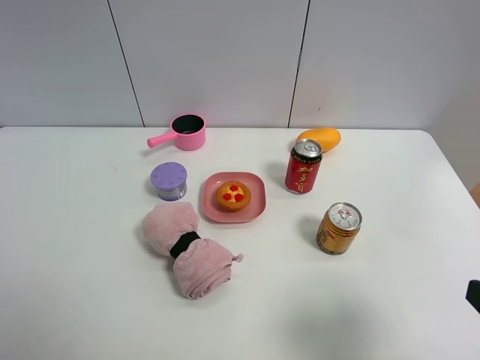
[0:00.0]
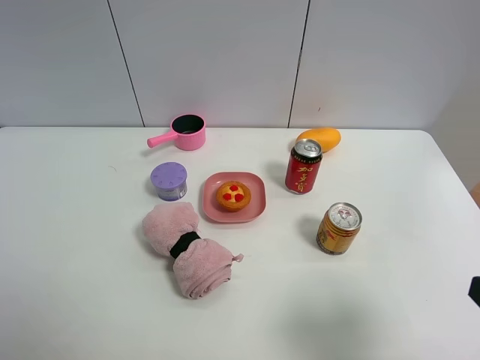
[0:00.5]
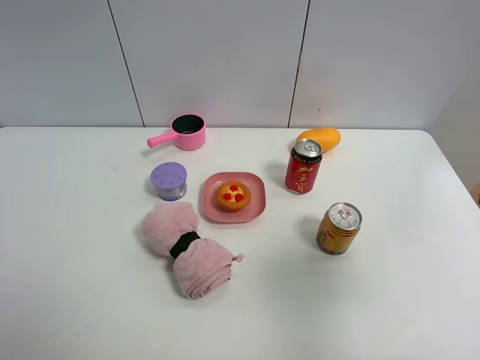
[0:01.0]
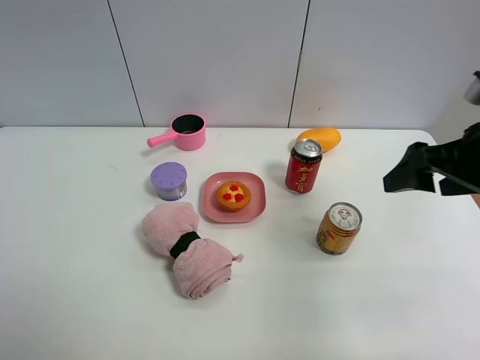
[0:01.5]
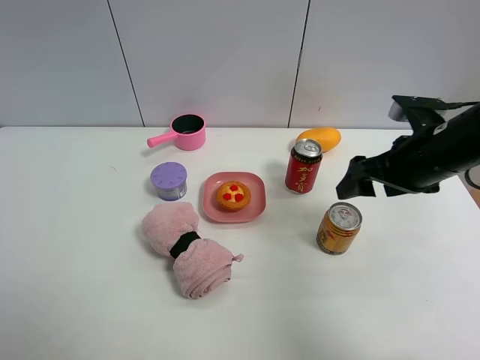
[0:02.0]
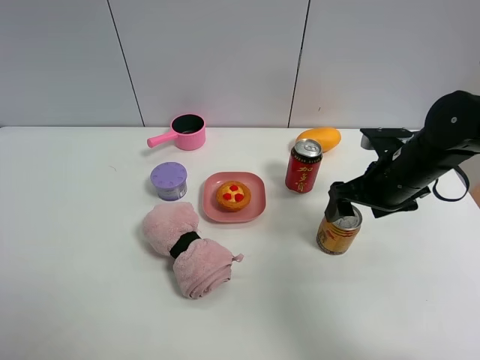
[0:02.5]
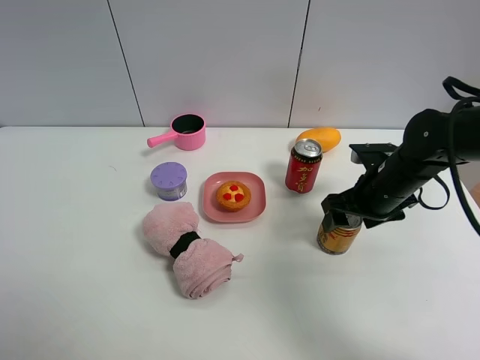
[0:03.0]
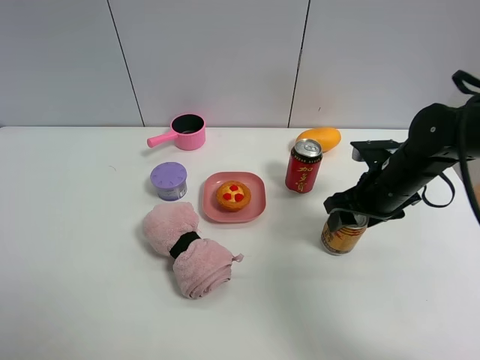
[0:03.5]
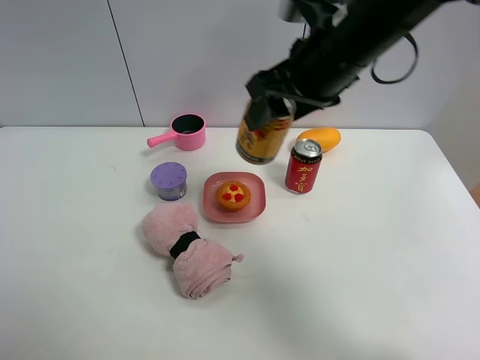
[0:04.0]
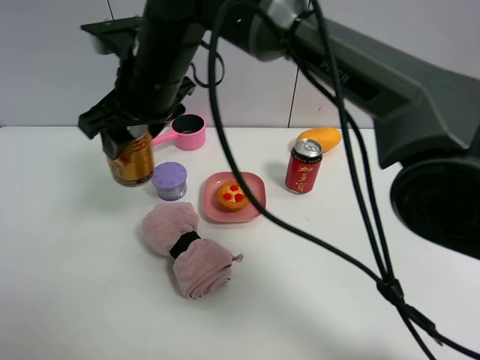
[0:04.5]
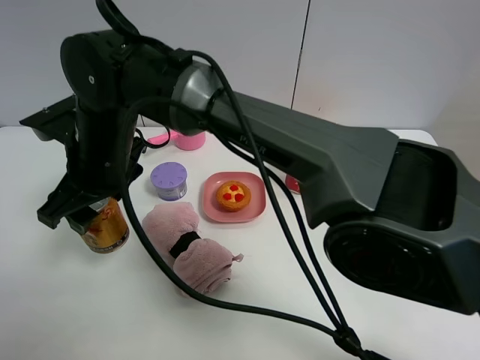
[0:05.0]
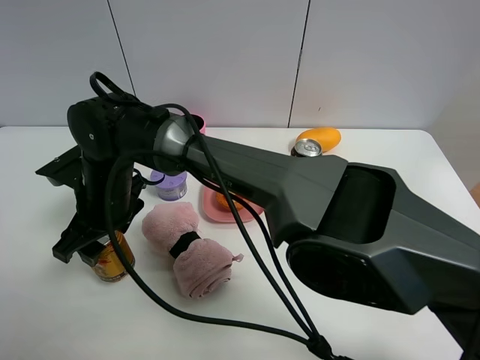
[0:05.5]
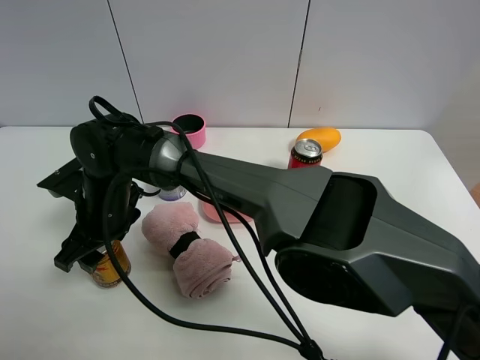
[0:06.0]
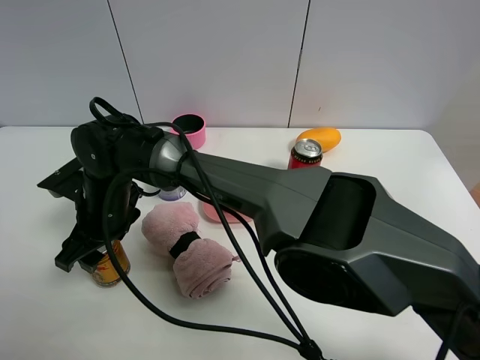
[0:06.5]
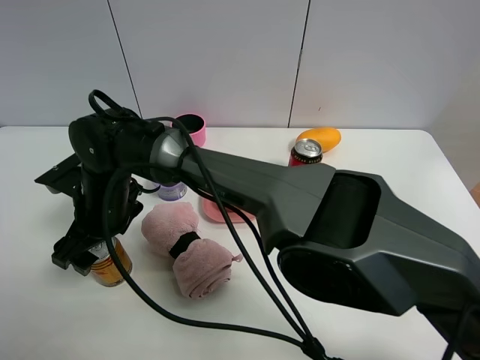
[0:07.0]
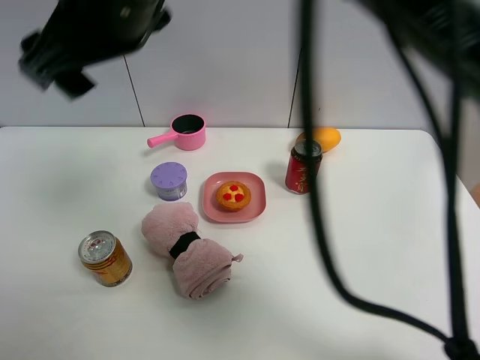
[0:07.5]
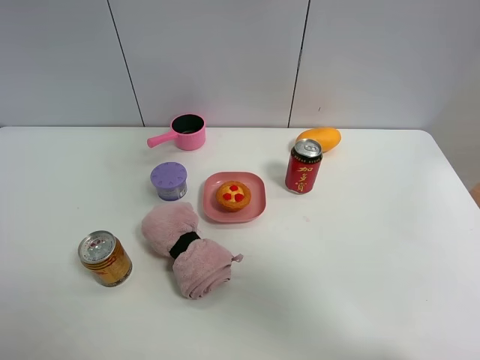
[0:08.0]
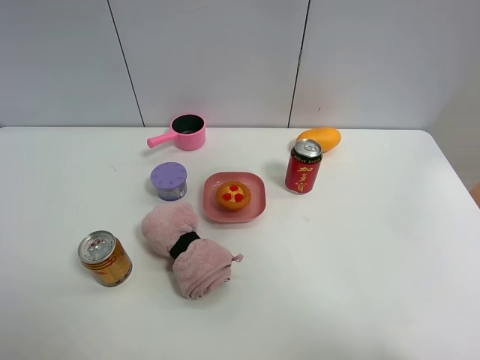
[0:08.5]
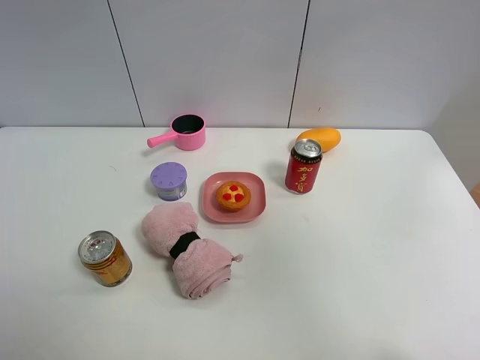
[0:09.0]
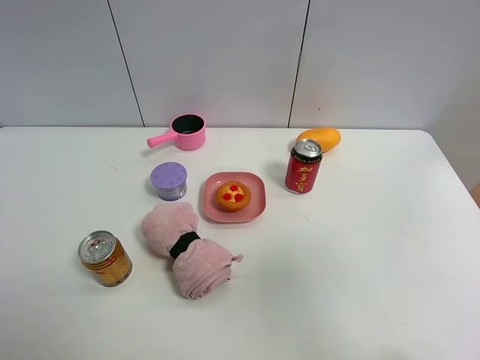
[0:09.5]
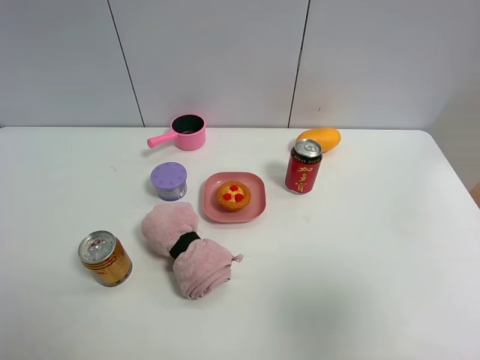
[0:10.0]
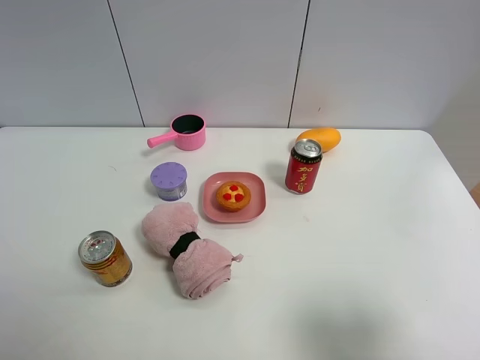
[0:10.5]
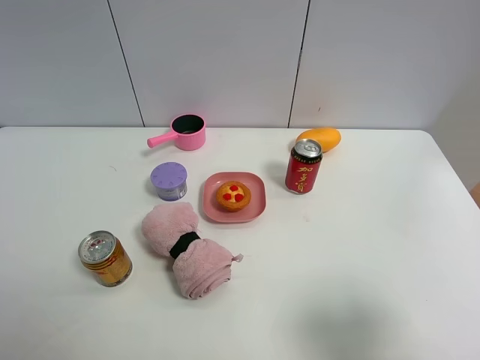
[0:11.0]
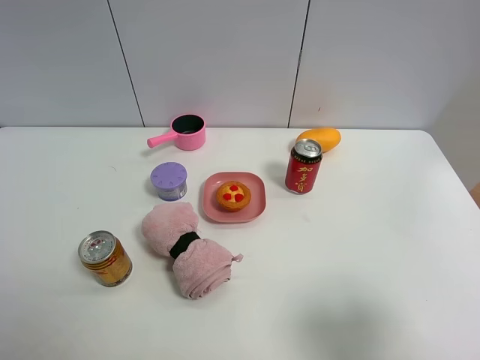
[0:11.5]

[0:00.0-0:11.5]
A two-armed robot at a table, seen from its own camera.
Task of the whole recording: the gripper move the object.
Step, 0:00.0 to 0:03.0: Grasp the red bull with the right gripper.
Step, 0:03.5 to 0:07.0: Place the red bull on the table with the right gripper.
0:00.0 to 0:02.0: The right gripper shifts roughly 25 cm forward.
0:02.0 to 0:04.0: The right gripper moves to the left and upward, approximately 20 cm, and closes its fingers.
0:04.0 to 0:06.0: The right gripper heads to the left and downward, covering about 35 cm.
0:06.0 to 0:07.5: The right gripper shifts about 30 cm upward and to the right, and opens.
0:07.5 to 0:09.5: The right gripper travels to the right and backward by approximately 40 cm.
0:09.5 to 0:11.5: The right gripper shifts roughly 15 cm downward.

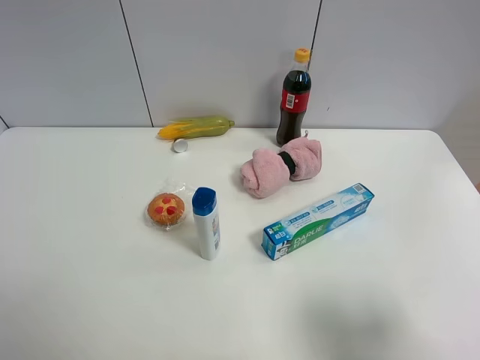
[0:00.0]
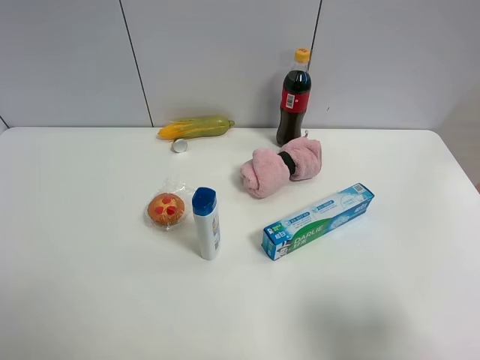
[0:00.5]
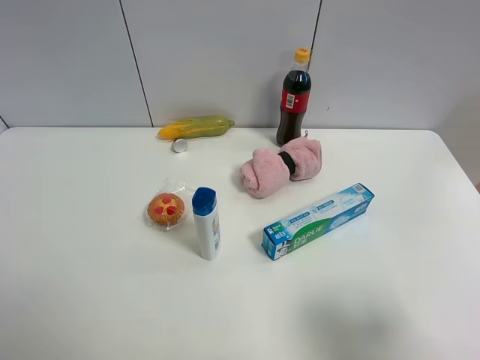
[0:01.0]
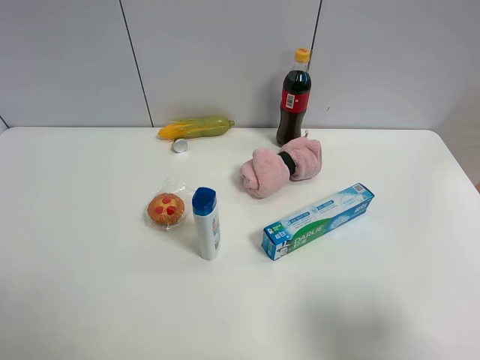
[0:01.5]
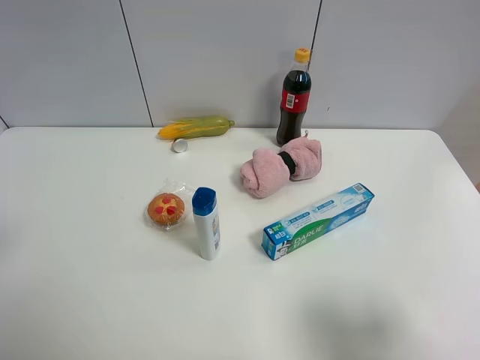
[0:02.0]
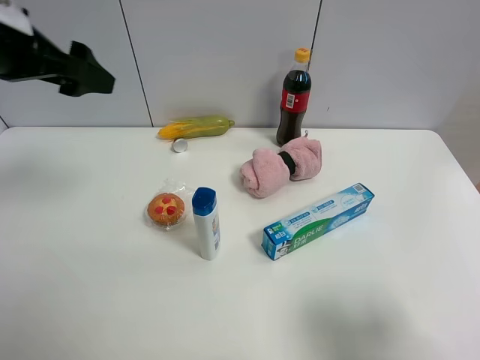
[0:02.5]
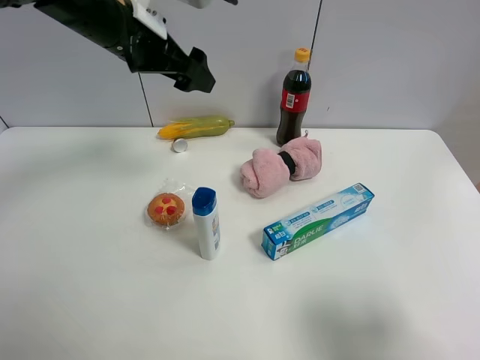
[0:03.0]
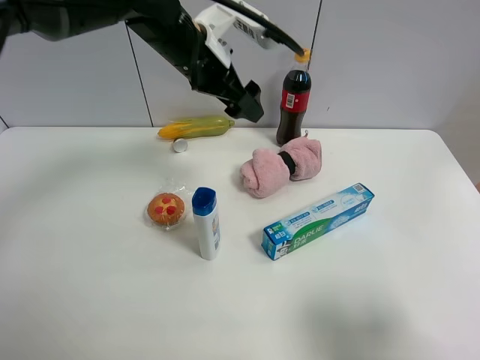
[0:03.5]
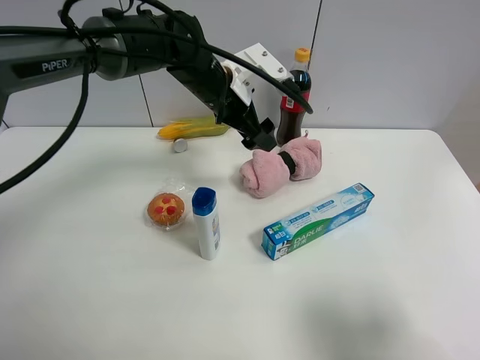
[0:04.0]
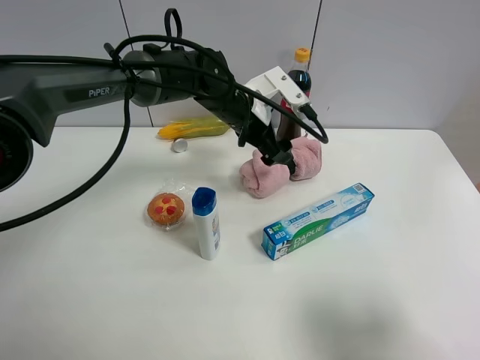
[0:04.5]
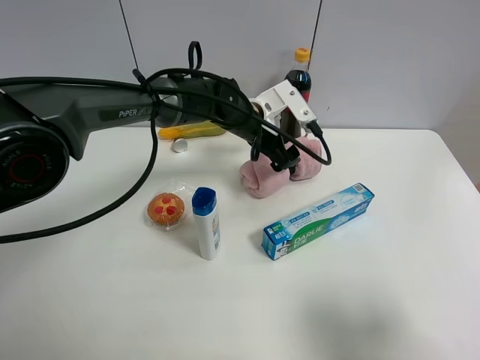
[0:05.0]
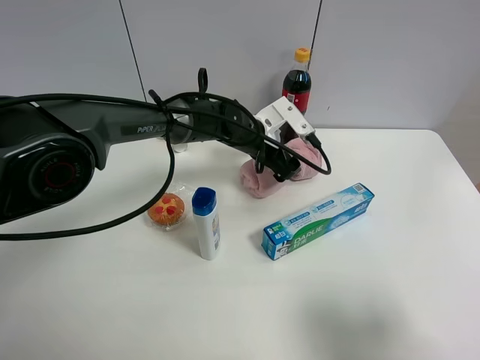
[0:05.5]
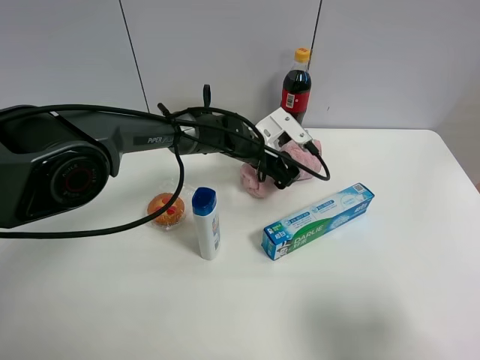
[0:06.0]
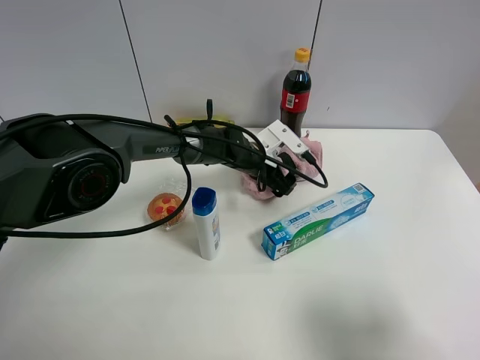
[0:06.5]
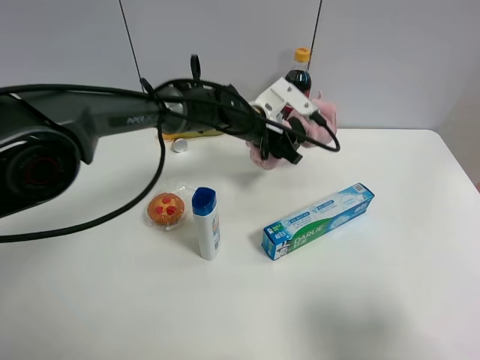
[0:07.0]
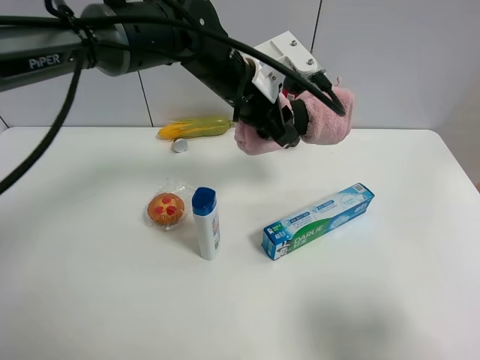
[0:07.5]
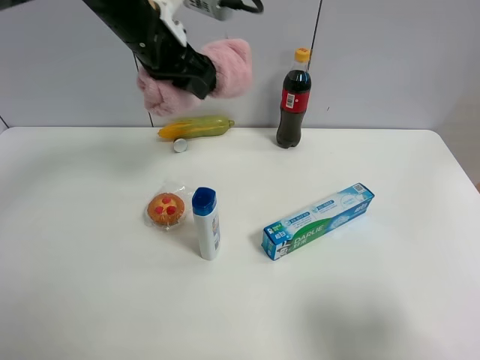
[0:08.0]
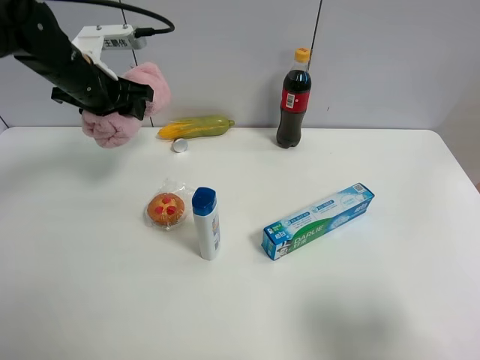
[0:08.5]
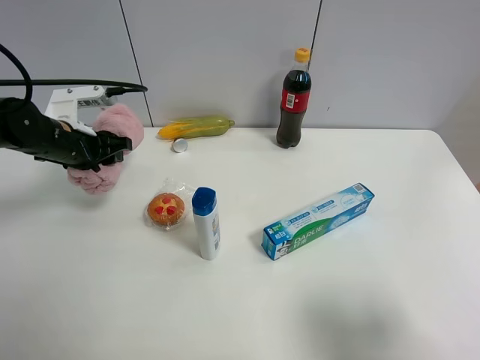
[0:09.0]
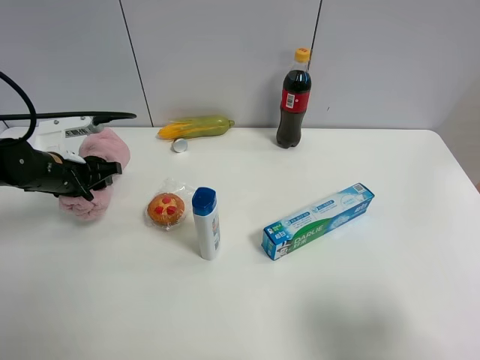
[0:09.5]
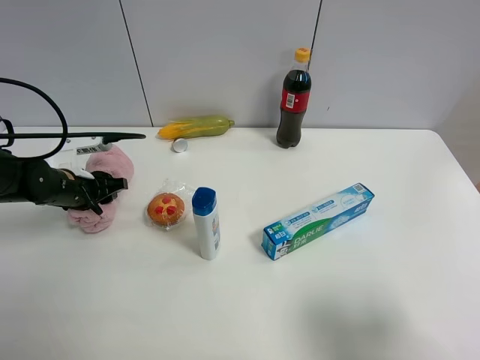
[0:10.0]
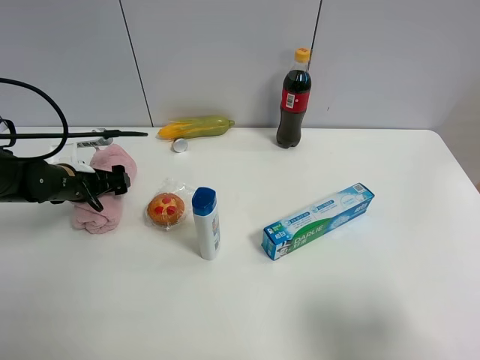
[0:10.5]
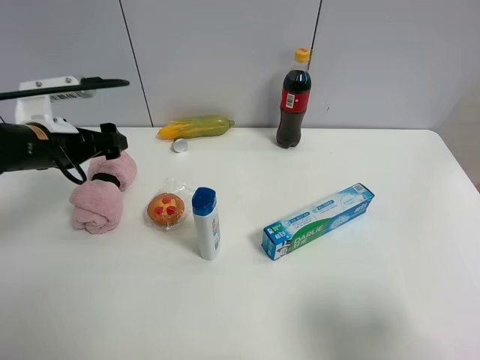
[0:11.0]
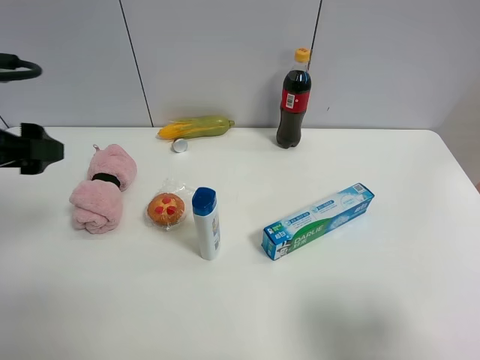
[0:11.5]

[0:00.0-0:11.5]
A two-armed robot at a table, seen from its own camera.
Task of the whole recording: the gripper move the object.
Step, 0:00.0 to 0:06.5: Grasp the pink towel with the left gripper.
Step, 0:07.0 to 0:10.0: Place the pink towel on the table with the left gripper.
0:02.0 to 0:04.0: The left gripper travels to the right, forward and downward by roughly 40 cm.
0:04.0 to 0:06.0: The left gripper travels downward by some 15 cm.
0:06.0 to 0:07.5: The left gripper heads upward, covering roughly 15 cm, and closes.
0:07.5 to 0:09.5: The left gripper travels to the left and downward by roughly 30 cm.
0:09.5 to 0:11.5: The left gripper travels upward and backward by approximately 20 cm, and opens its fingers.

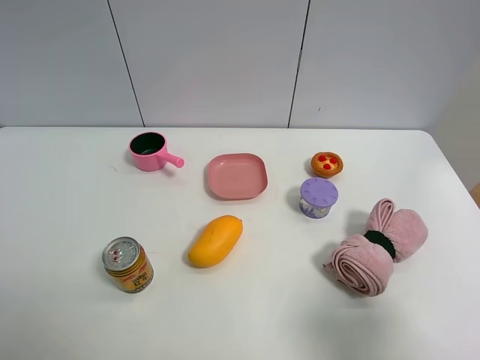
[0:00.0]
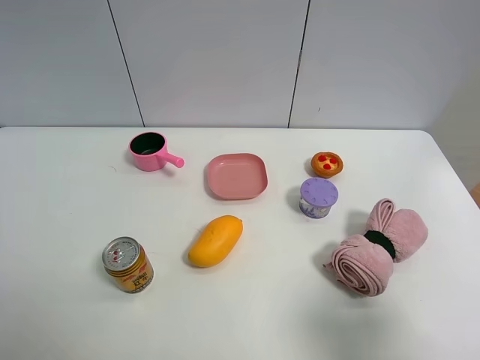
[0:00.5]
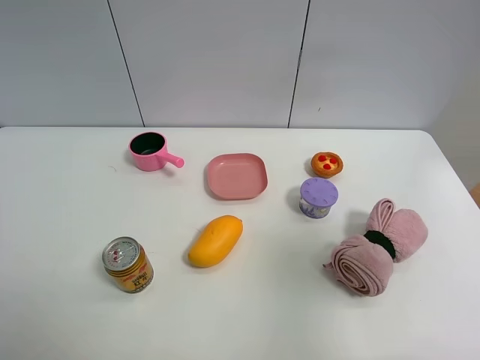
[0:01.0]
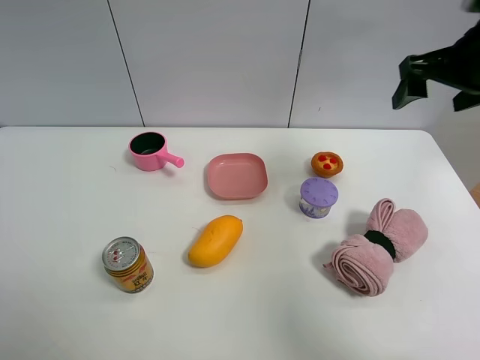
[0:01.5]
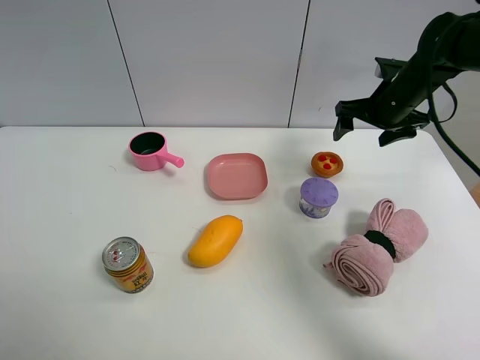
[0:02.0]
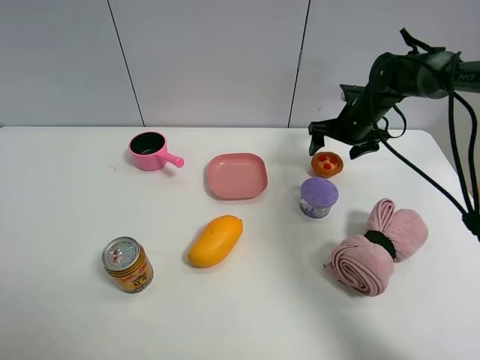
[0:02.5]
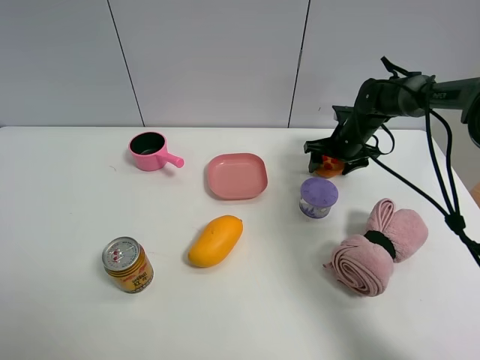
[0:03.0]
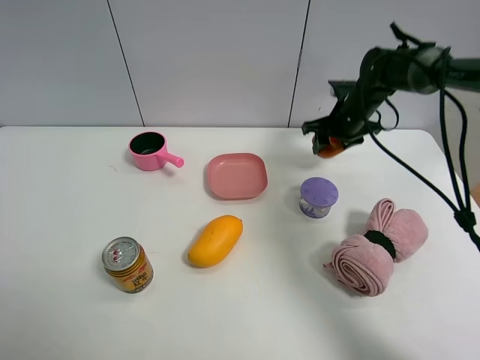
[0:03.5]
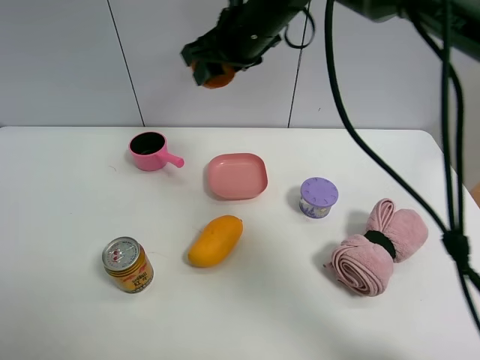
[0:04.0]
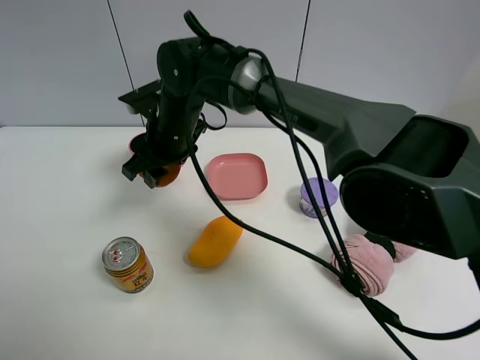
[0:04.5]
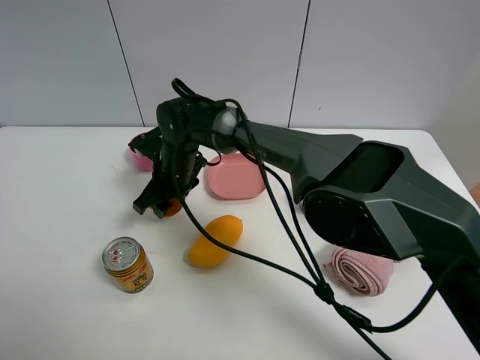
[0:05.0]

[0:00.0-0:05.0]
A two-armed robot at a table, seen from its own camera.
Task of the whole recording: the gripper move the object.
Step, 0:00.0 to 0:03.0: Grasp the egg tart with the right gripper.
0:00.0 to 0:02.5: The right gripper is displaced forward by about 50 cm.
0:02.5 to 0:05.0: The right gripper moves to the left, roughly 35 cm, and closes its fingers.
